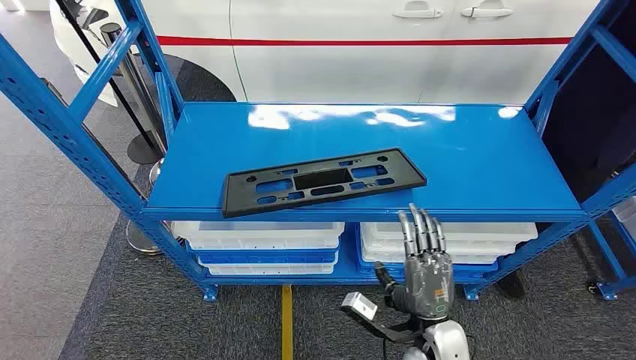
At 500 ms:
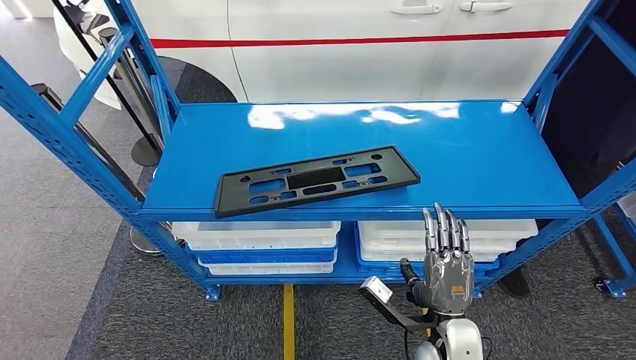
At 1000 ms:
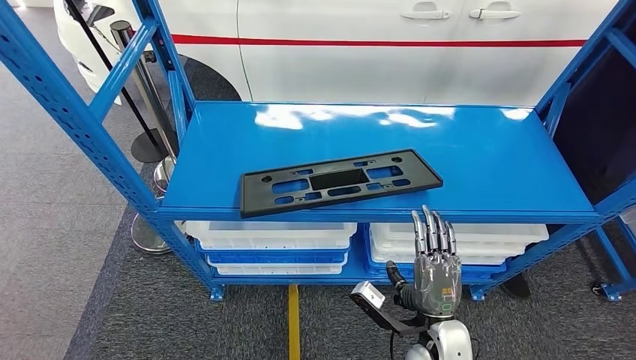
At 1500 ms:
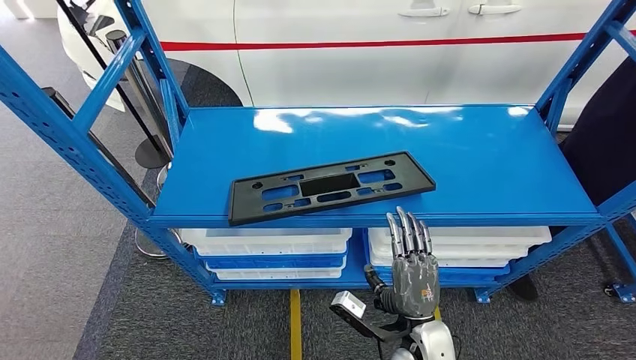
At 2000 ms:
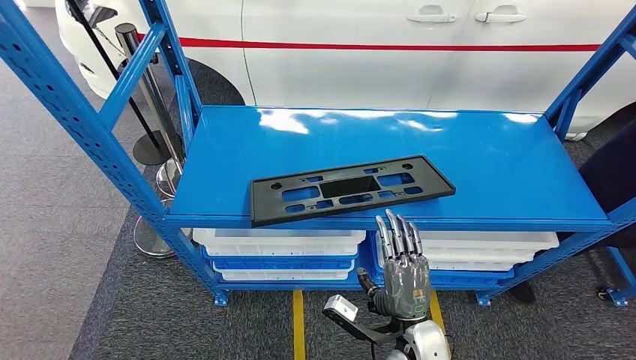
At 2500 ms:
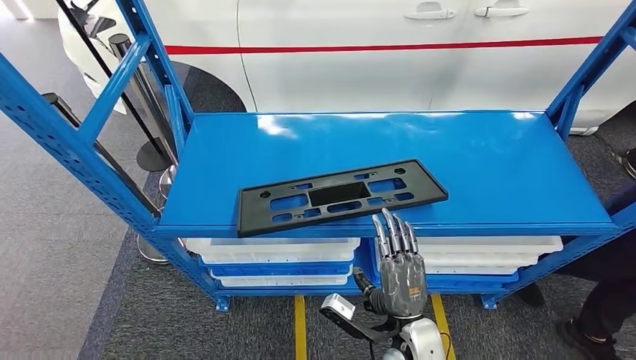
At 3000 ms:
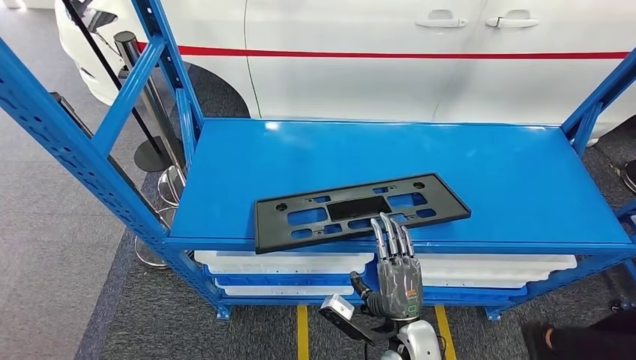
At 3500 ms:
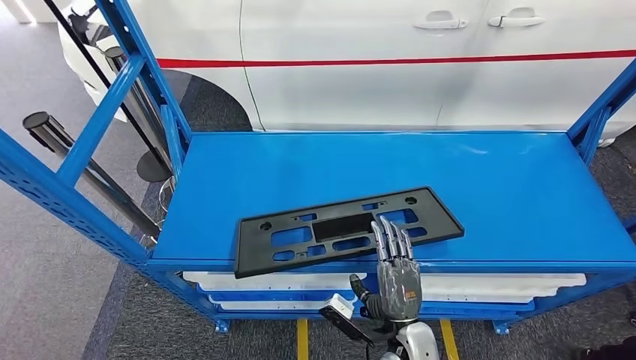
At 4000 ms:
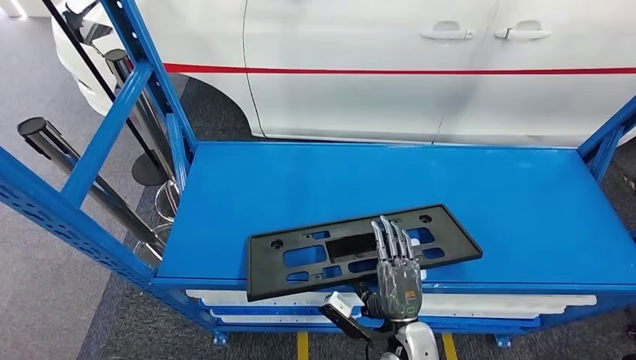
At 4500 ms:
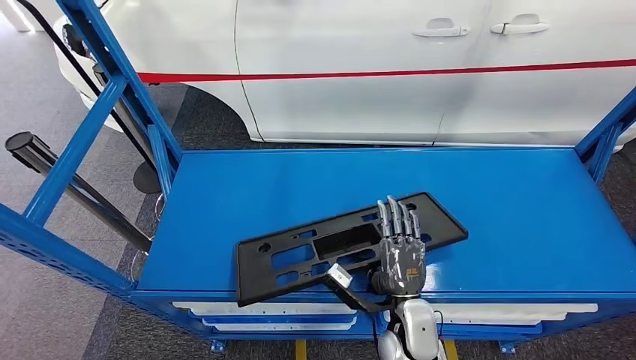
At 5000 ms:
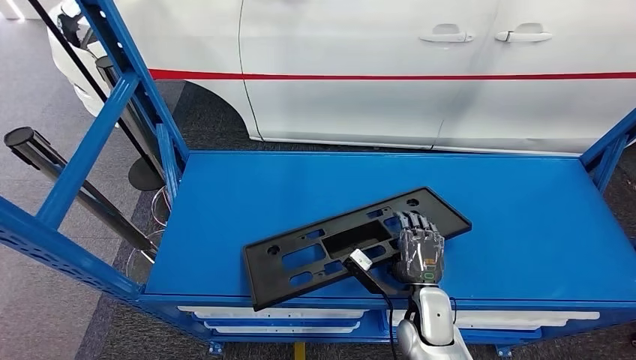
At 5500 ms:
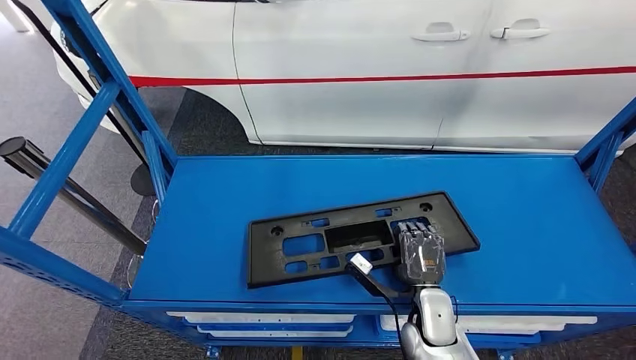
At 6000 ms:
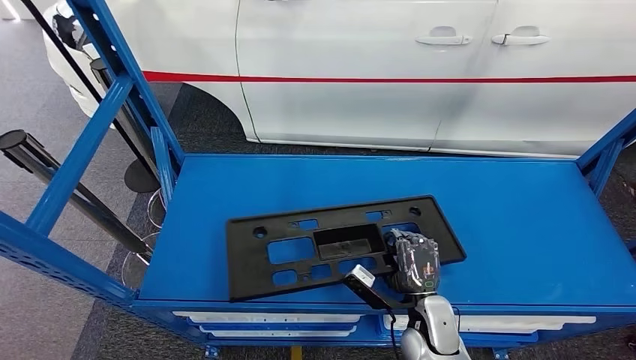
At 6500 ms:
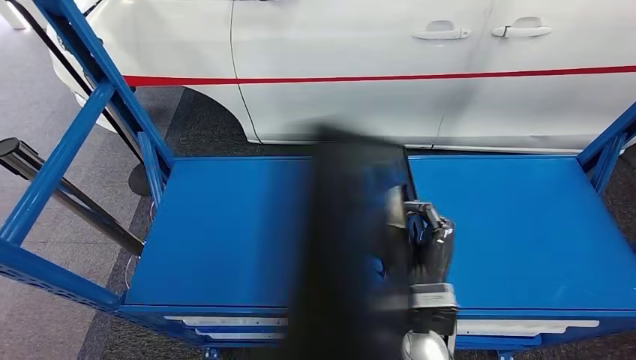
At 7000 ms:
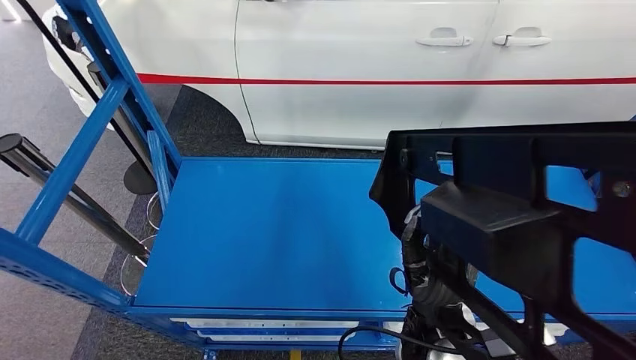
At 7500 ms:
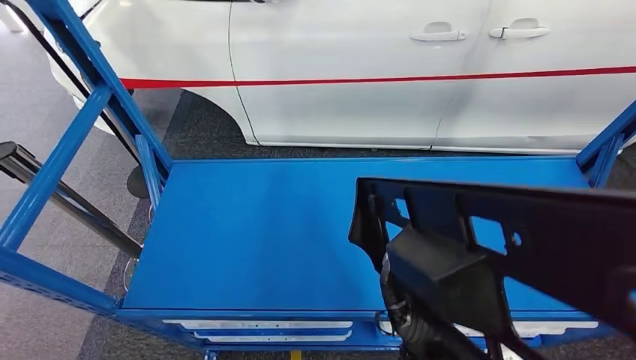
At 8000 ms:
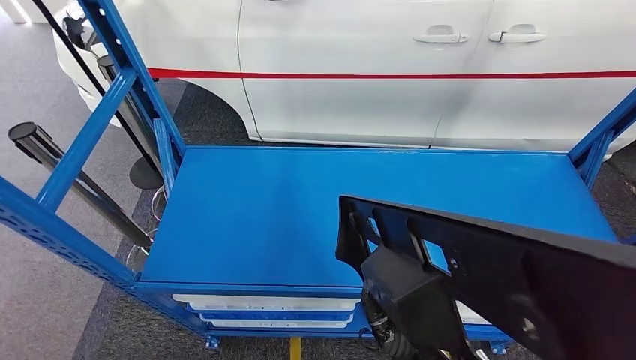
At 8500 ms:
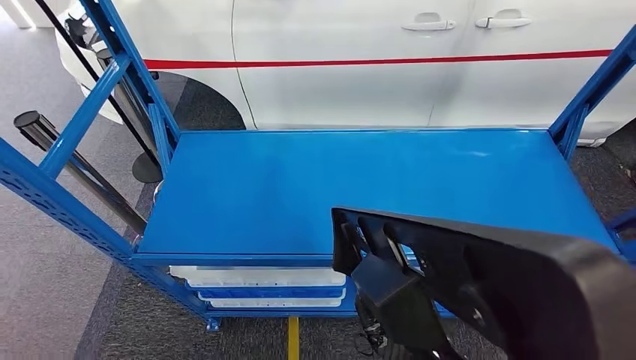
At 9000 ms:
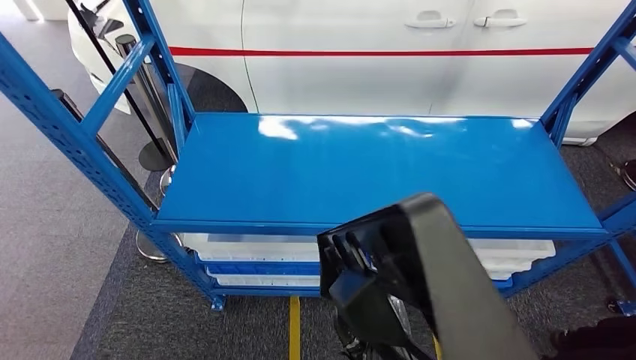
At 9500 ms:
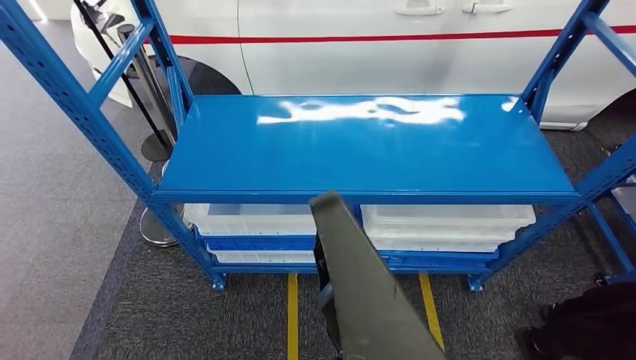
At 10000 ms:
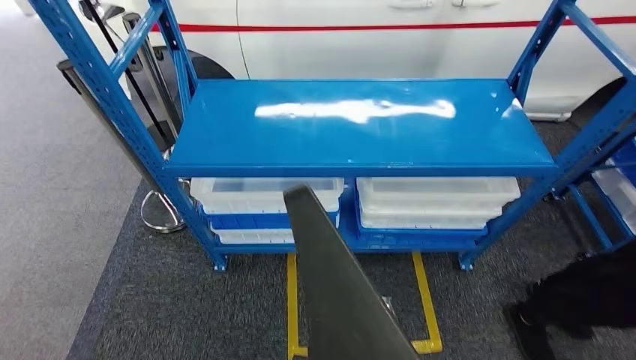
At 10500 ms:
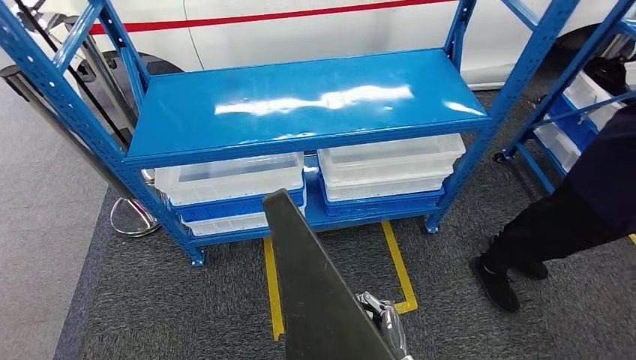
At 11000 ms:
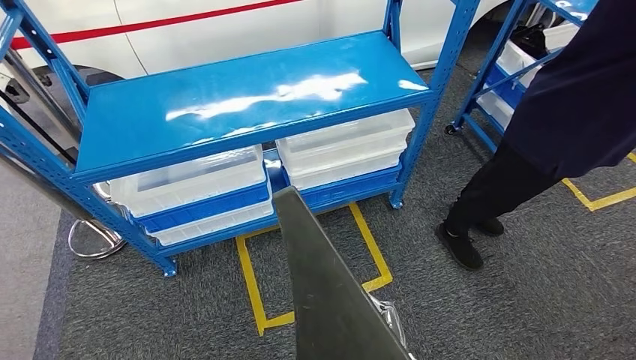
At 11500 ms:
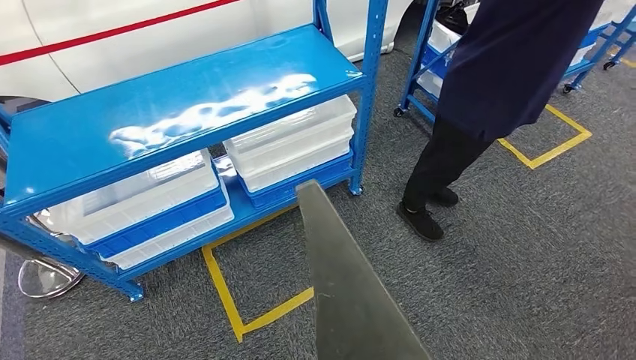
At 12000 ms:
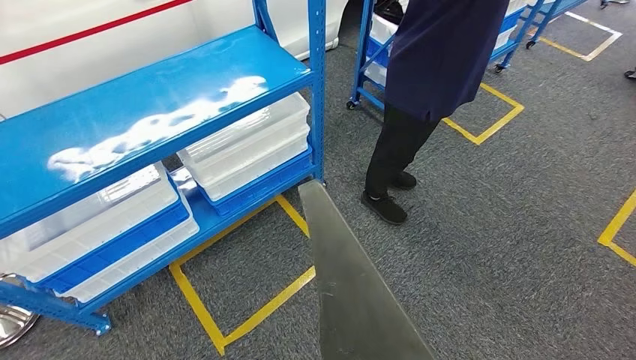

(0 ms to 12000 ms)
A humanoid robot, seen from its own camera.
Step, 0 ms - 8500 ms: Pick up the large material from the shelf.

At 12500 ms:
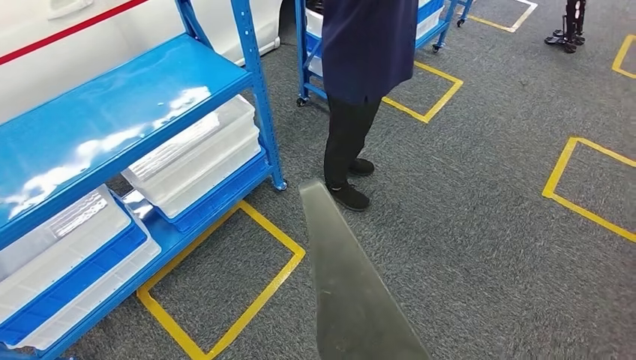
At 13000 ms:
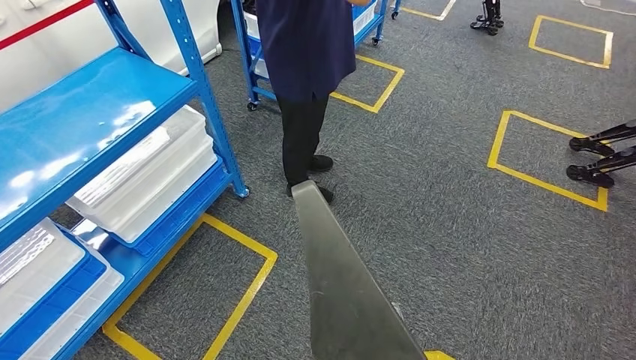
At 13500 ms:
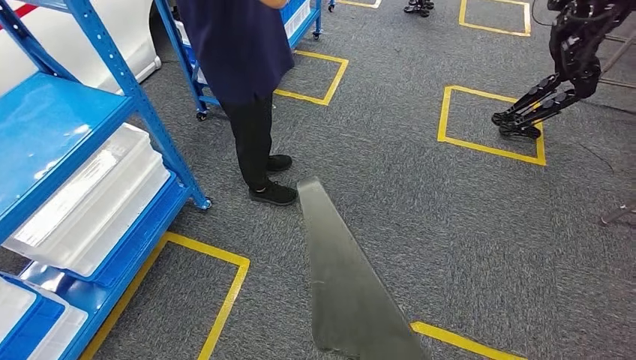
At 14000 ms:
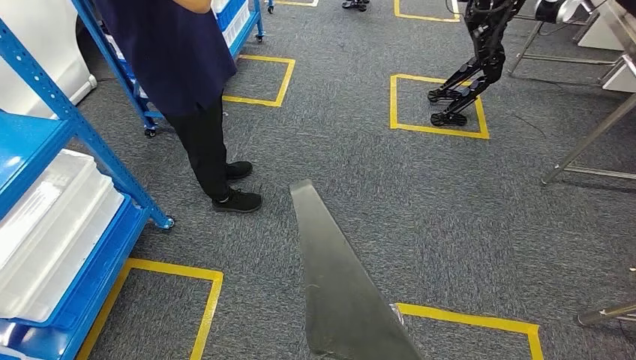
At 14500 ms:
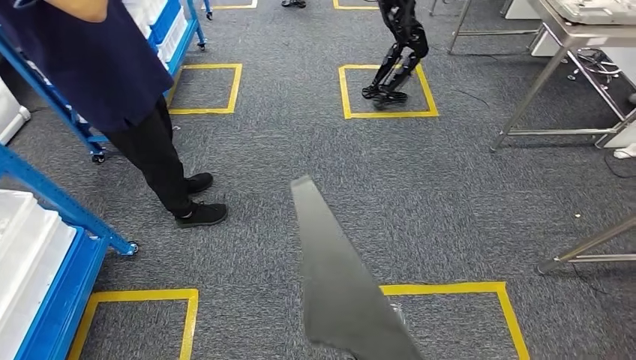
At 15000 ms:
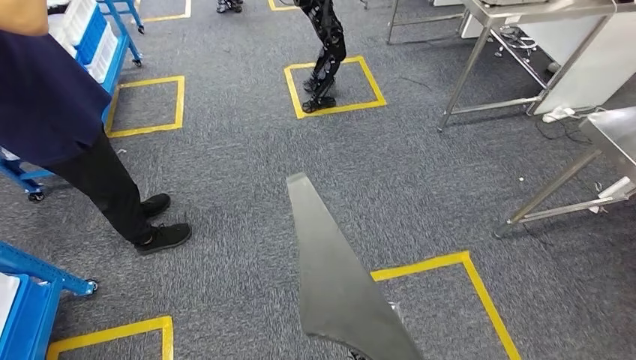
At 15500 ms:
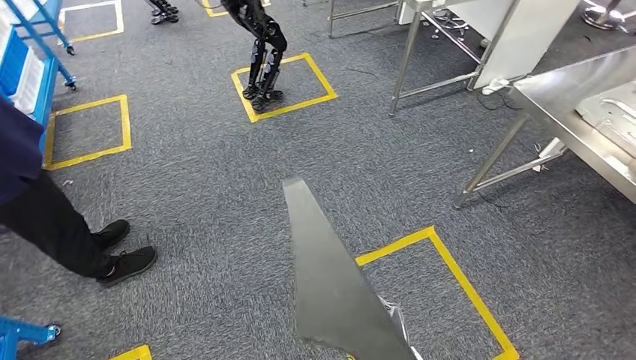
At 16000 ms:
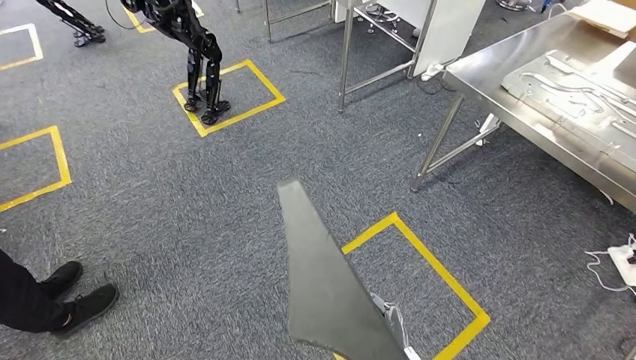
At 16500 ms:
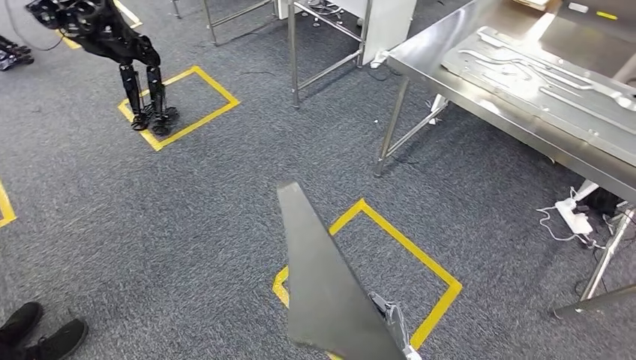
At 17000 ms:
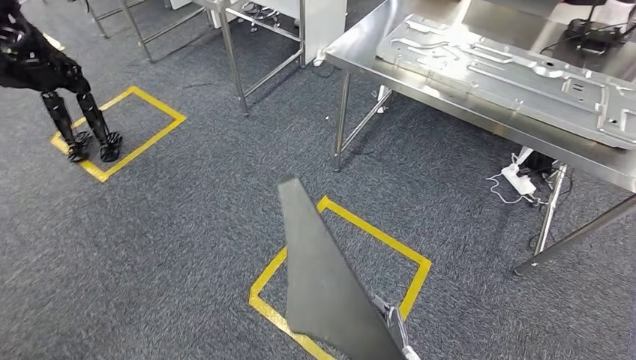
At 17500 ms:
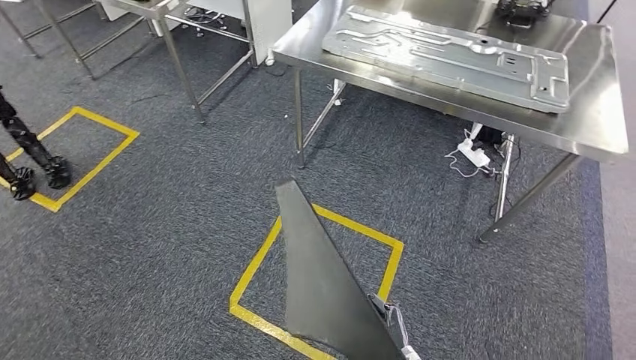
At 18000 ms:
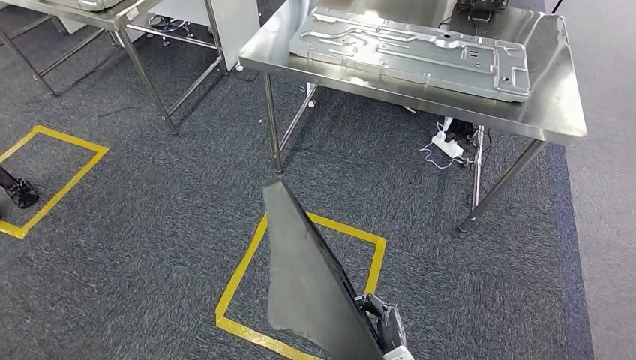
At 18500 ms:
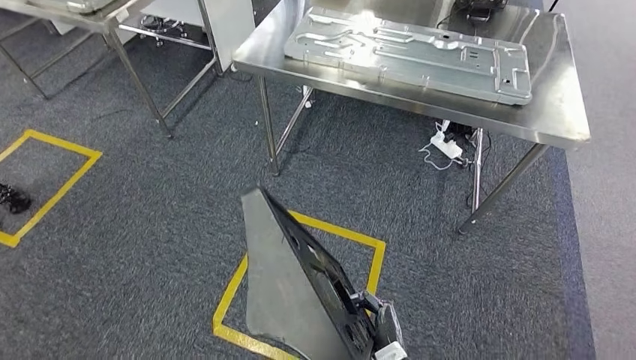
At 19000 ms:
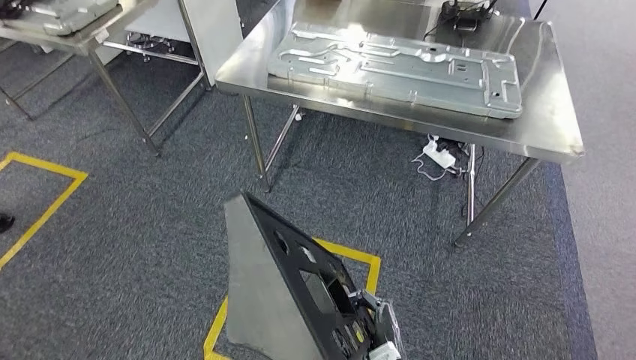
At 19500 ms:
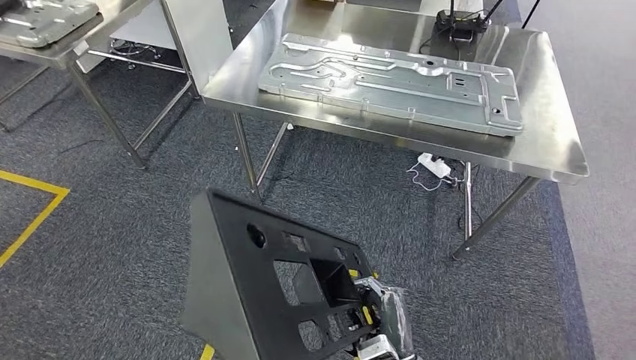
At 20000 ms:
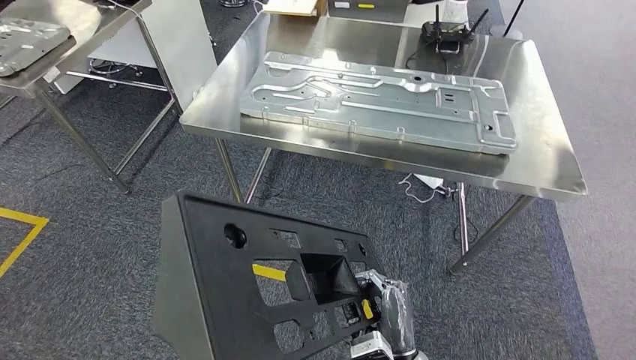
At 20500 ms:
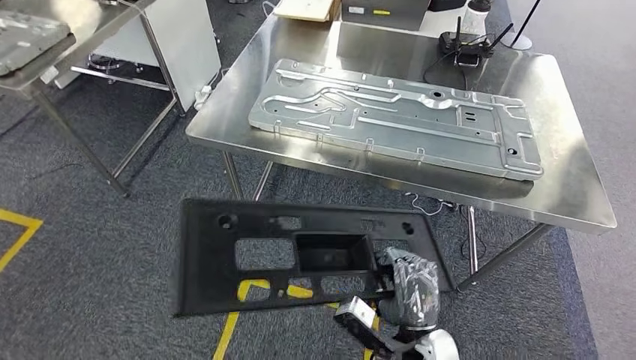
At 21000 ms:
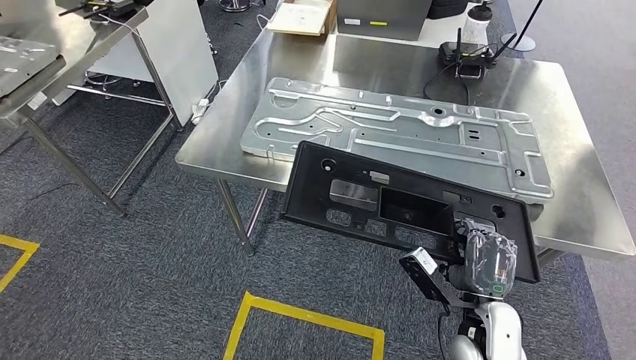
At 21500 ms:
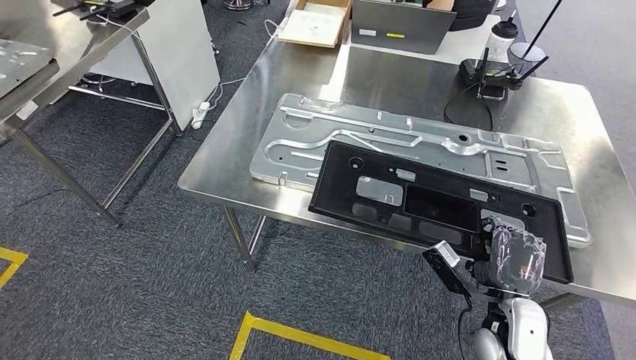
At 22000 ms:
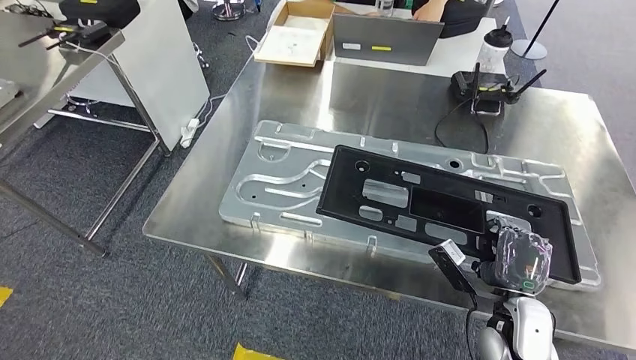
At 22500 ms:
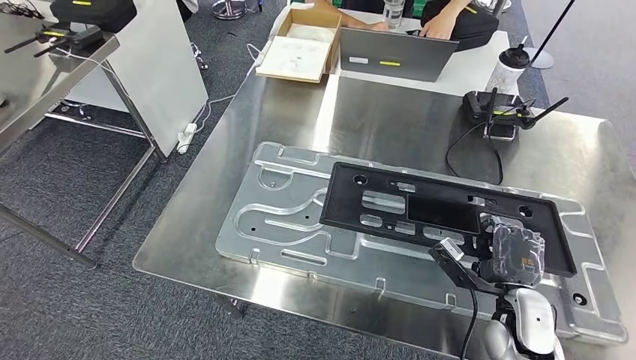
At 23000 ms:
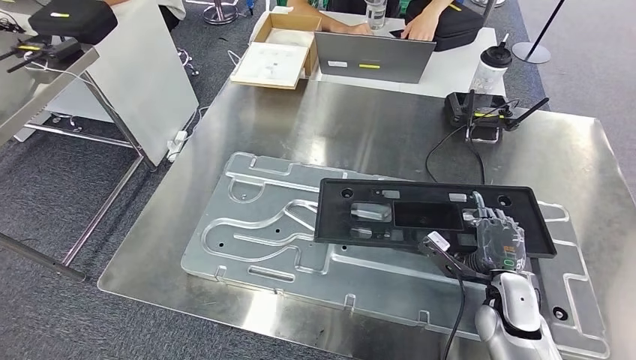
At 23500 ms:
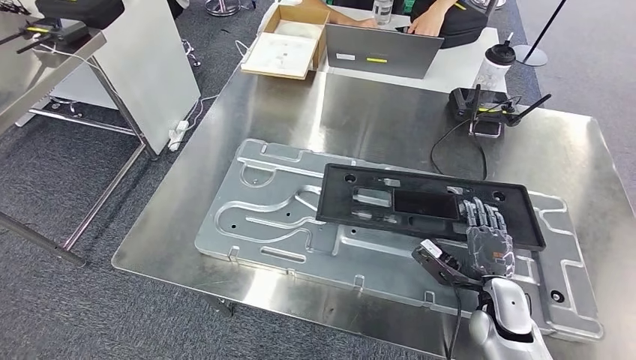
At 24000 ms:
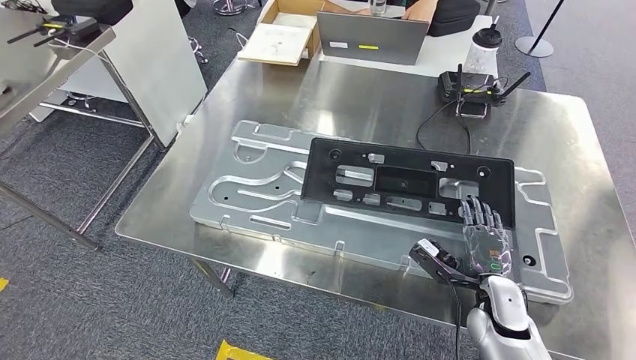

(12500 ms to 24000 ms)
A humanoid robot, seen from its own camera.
Step, 12500 ms - 20000 ms: Move the large material to the front of the workbench.
